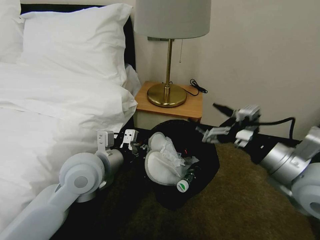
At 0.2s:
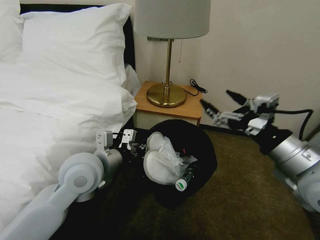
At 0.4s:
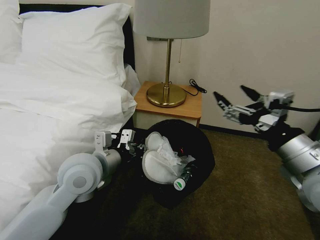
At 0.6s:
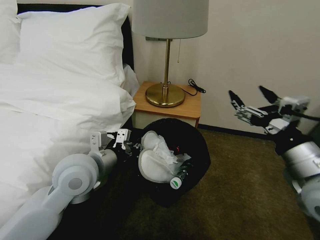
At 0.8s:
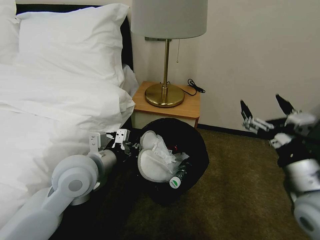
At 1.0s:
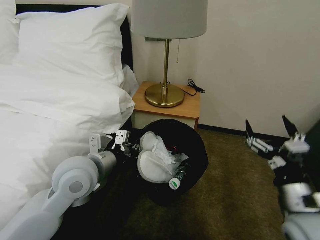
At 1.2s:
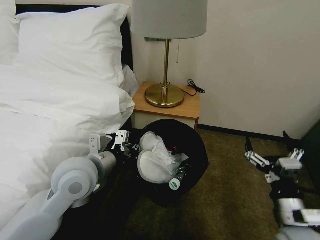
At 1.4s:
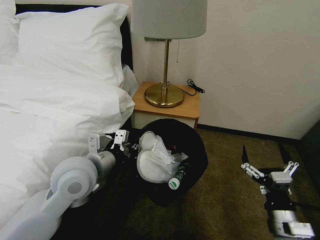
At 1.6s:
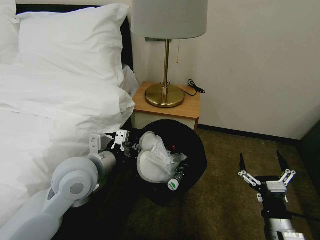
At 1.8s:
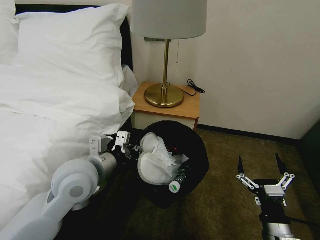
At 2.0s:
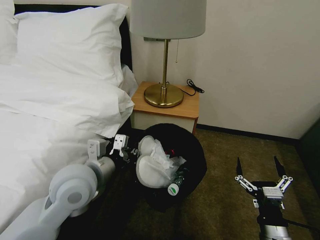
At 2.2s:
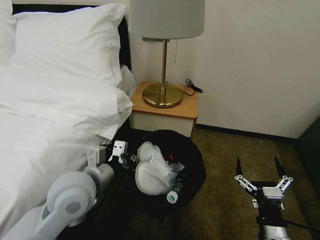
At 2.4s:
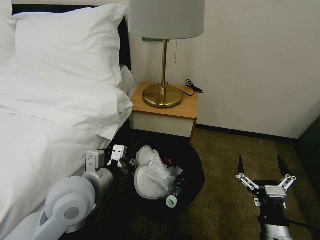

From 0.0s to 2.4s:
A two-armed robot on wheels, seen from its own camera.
Task of the whole recording: Pick up the trash bin, then pick up the garbage on the floor and place it into the trash bin.
From 0.0s to 1.2s: The right gripper goes approximately 15 cm downward.
From 1.2s to 2.4s: The right gripper heads downward, covering approximately 5 cm.
